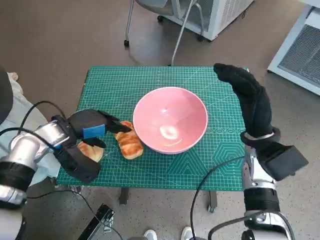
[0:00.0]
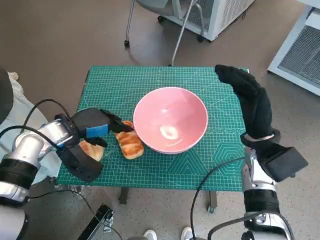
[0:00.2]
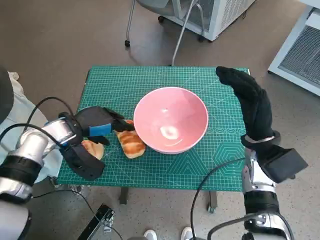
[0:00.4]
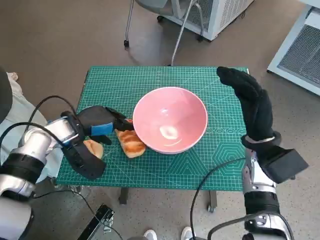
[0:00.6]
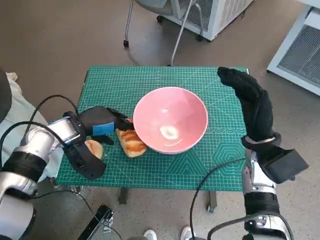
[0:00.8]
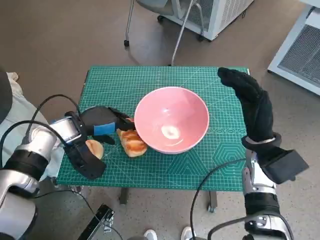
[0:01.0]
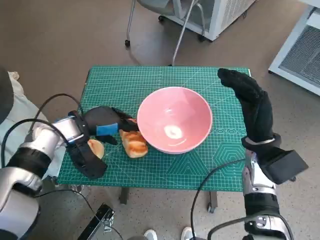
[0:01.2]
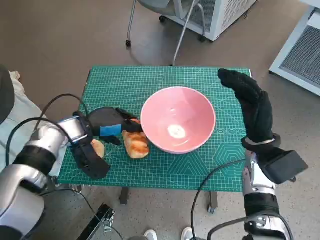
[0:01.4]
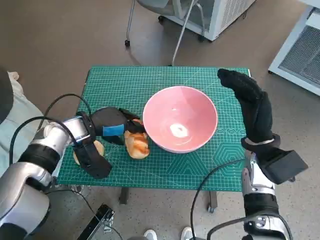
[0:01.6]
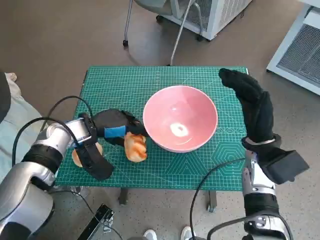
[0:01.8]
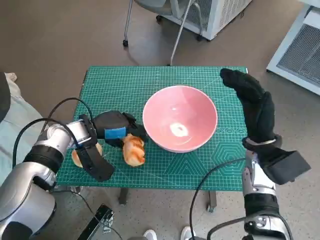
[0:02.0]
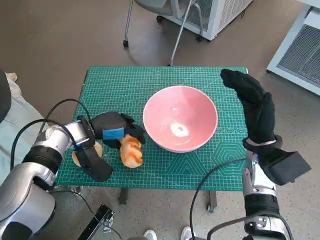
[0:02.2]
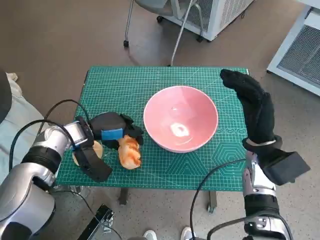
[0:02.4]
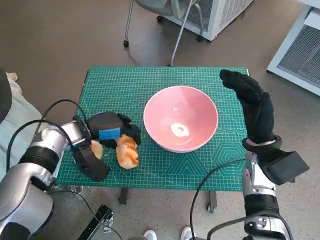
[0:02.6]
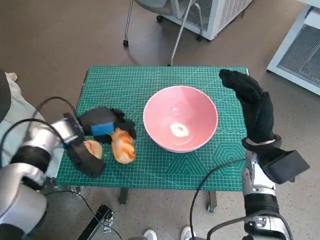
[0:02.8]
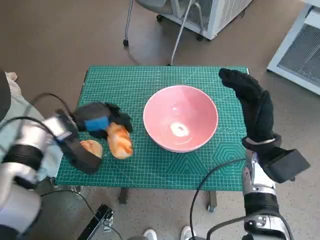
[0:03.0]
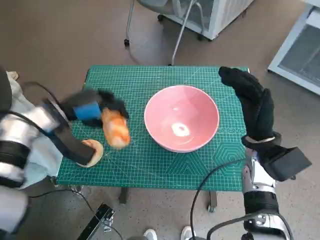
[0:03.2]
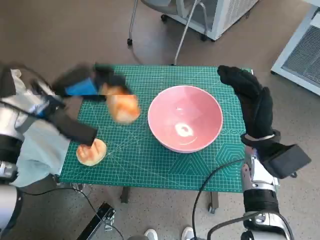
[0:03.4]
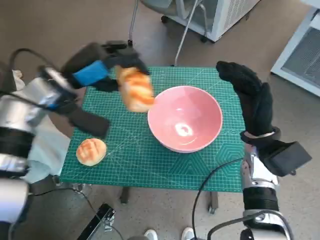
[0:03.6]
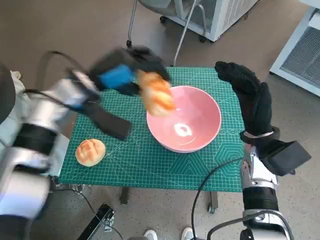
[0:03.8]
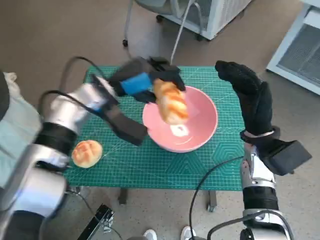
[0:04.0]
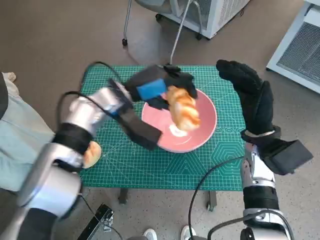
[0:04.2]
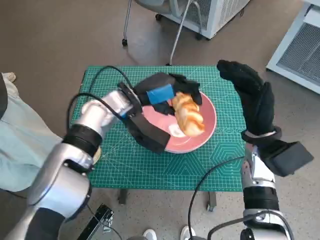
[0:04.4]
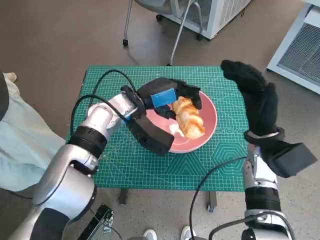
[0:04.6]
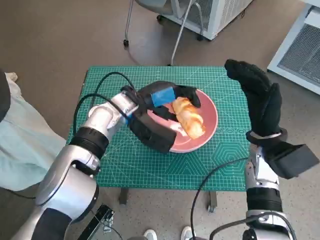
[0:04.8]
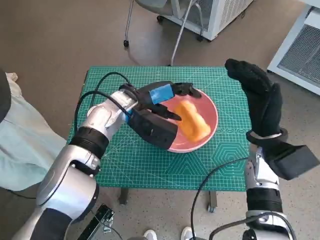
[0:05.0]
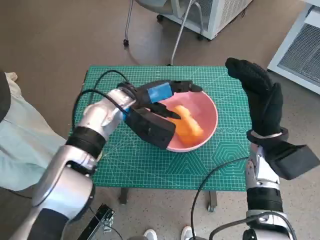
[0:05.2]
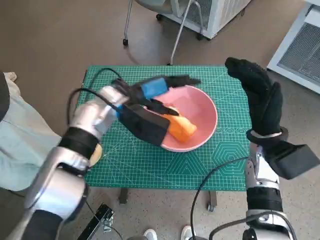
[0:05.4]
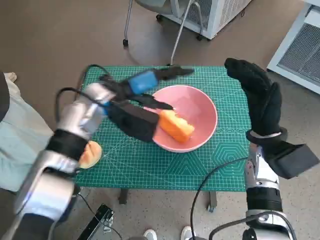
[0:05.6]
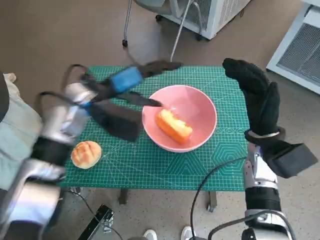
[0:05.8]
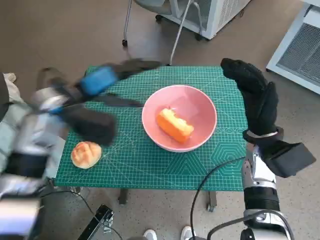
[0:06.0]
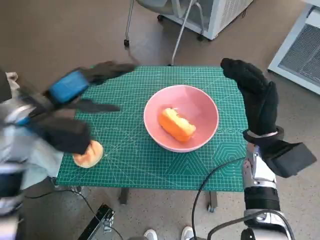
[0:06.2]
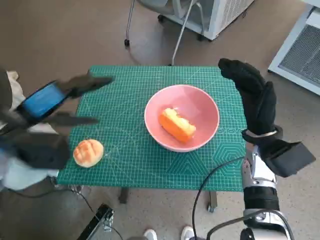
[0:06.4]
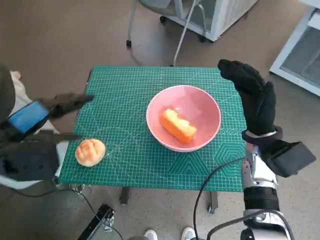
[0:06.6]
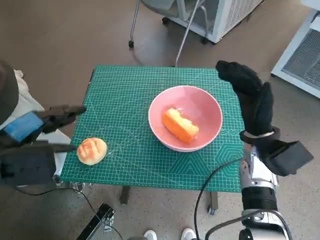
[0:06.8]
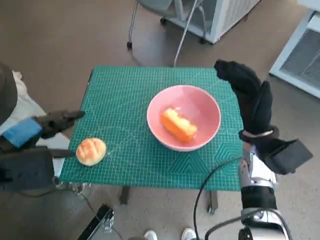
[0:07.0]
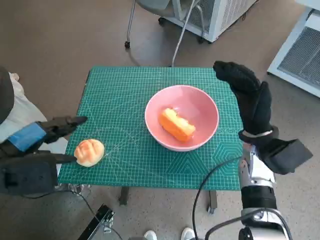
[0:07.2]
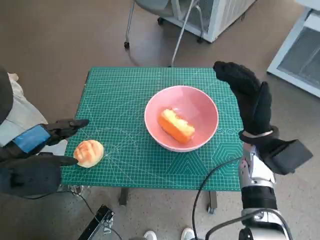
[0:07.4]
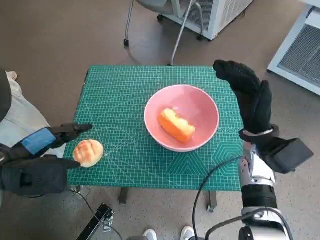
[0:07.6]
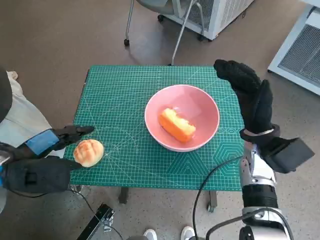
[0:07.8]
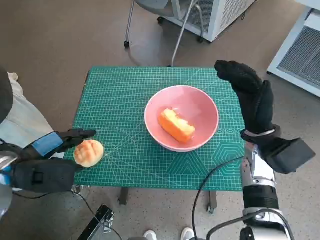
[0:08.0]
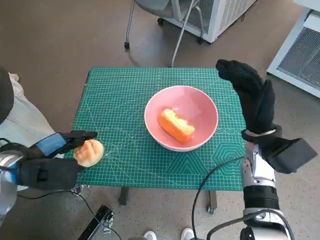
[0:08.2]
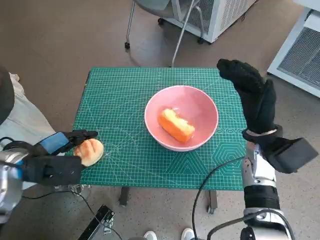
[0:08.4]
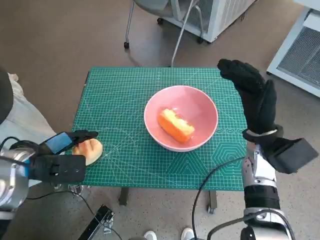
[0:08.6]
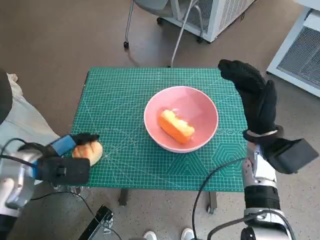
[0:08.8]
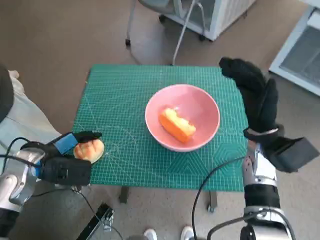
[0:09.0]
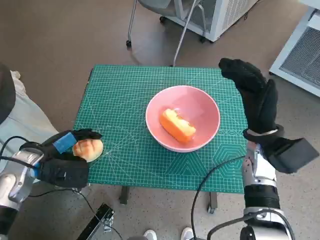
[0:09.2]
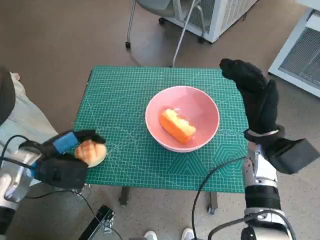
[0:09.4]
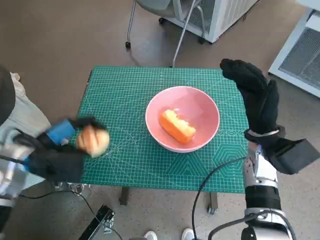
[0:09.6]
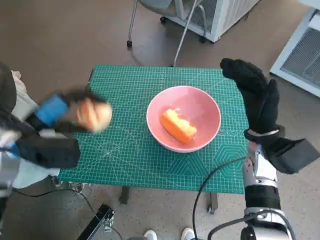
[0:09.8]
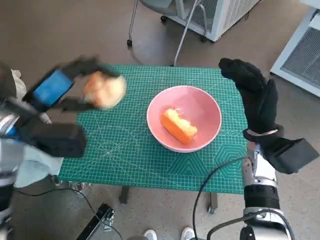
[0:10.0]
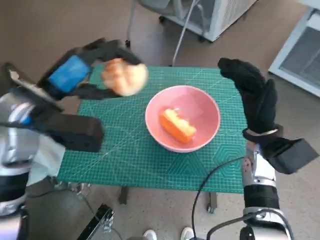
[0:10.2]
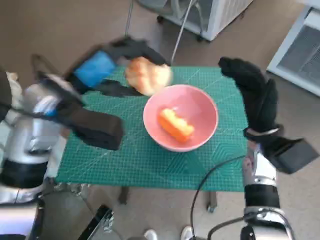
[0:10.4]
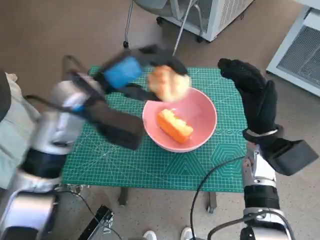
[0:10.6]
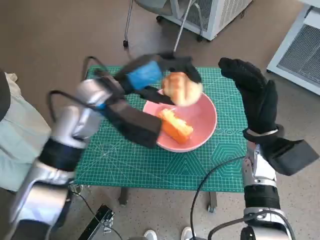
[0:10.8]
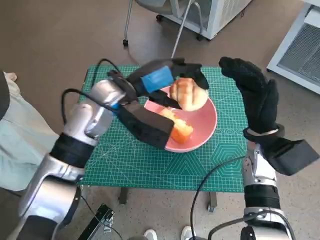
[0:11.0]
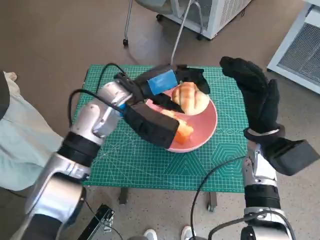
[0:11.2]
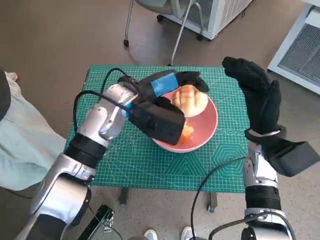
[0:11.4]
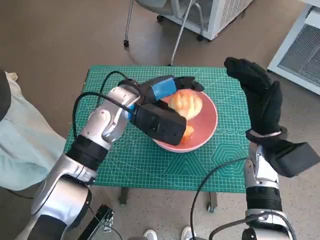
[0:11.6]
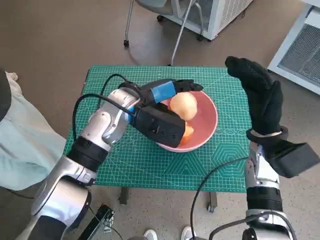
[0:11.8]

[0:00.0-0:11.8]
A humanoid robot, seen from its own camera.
Task of the whole recording: Push the bowl to the center of the table and put the bread into the bowl.
Step, 0:02.0 to 0:05.6: Place the long bread in pink bowl with left hand.
Step, 0:05.8 to 0:08.8: Grasp the round bread with left hand.
0:01.4 to 0:03.0: The hands stay close to where they were, moving slightly.
0:03.0 to 0:04.4: The left hand goes roughly 15 cm to the right.
0:04.4 to 0:06.0: The left hand travels to the left by some 10 cm.
0:06.0 to 0:07.4: The left hand moves backward and to the left, approximately 15 cm.
0:07.4 to 0:08.8: The left hand goes roughly 5 cm downward.
0:08.8 to 0:10.4: The left hand goes approximately 15 cm upward and to the right.
0:10.4 to 0:11.8: The left hand is displaced to the right, downward and forward by about 10 cm.

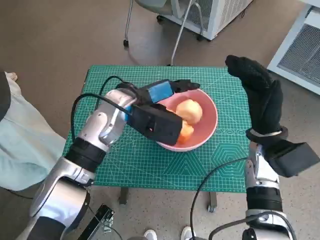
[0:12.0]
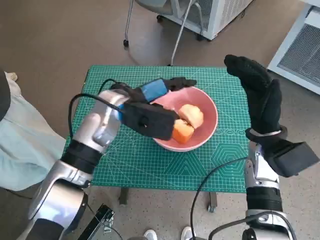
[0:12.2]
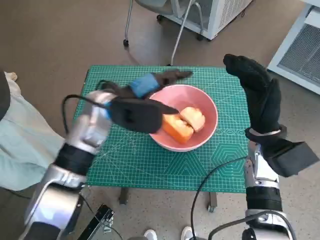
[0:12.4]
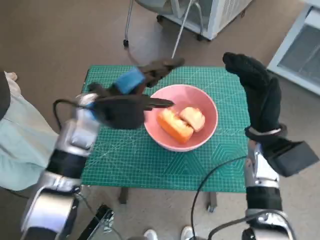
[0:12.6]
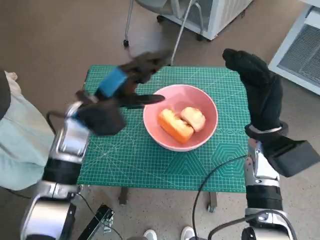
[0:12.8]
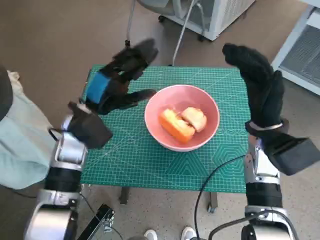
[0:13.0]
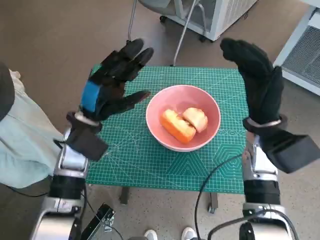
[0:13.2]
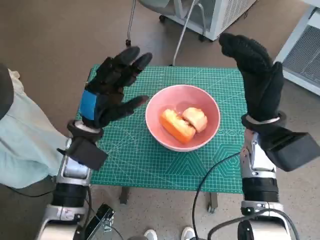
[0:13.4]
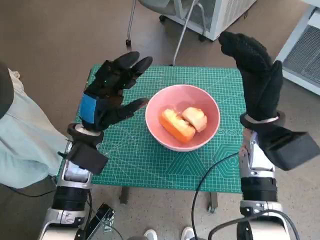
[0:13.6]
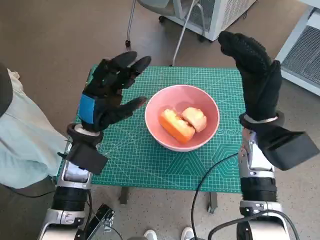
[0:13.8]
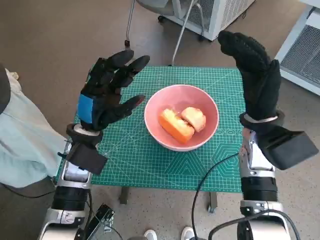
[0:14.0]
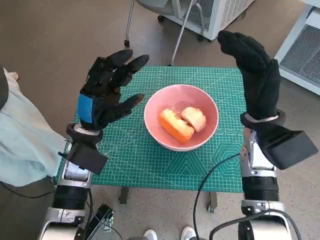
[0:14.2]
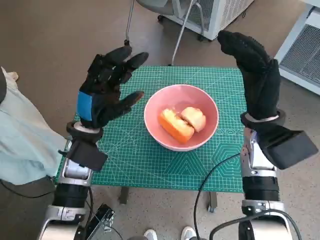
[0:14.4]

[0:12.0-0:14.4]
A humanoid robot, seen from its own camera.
Task of the whole recording: Push the bowl to the center of the table and put the bread into the bowl.
0:12.0 to 0:13.2: The left hand moves to the left, roughly 10 cm.
0:13.2 to 0:14.4: There are only small adjustments of the hands.

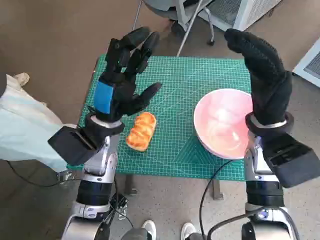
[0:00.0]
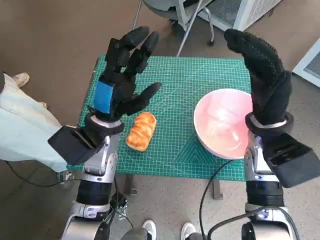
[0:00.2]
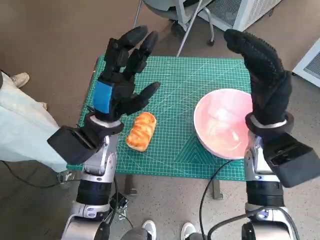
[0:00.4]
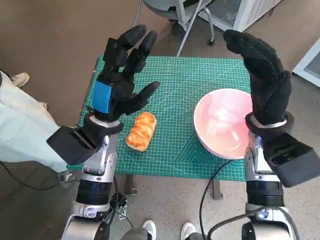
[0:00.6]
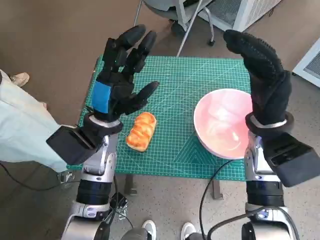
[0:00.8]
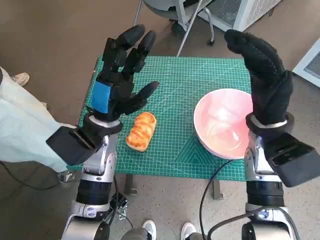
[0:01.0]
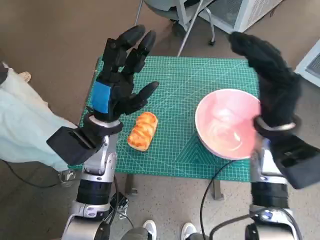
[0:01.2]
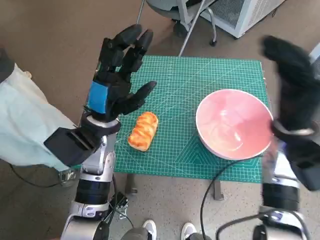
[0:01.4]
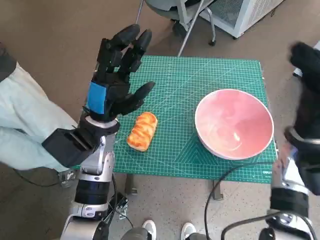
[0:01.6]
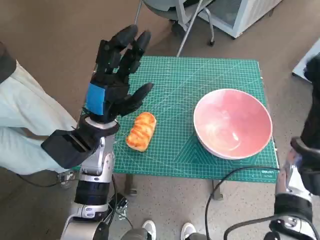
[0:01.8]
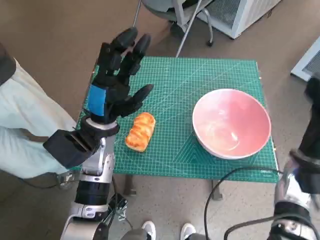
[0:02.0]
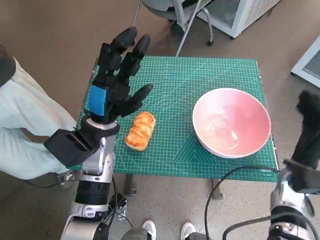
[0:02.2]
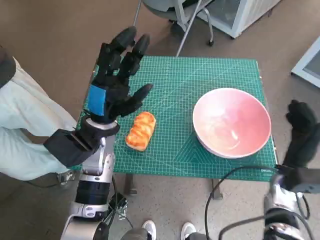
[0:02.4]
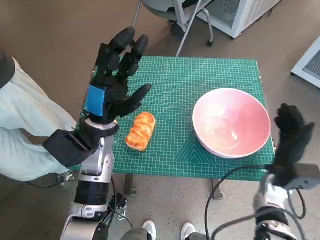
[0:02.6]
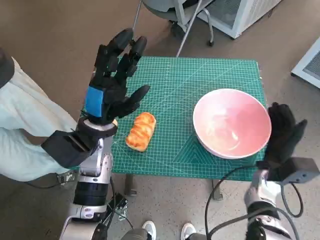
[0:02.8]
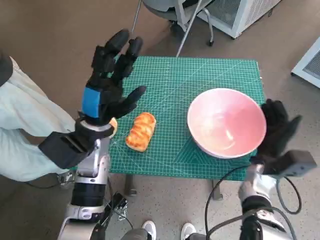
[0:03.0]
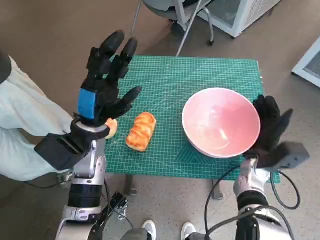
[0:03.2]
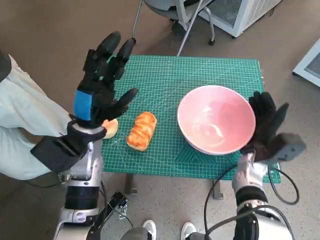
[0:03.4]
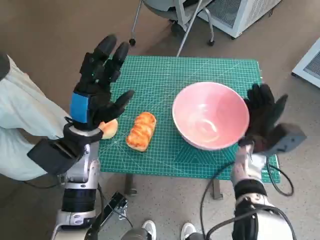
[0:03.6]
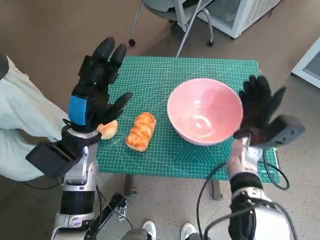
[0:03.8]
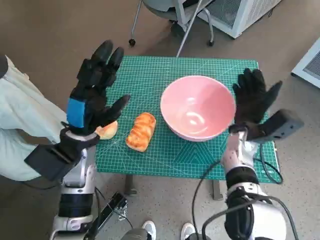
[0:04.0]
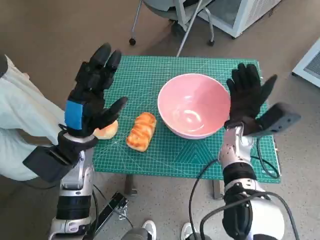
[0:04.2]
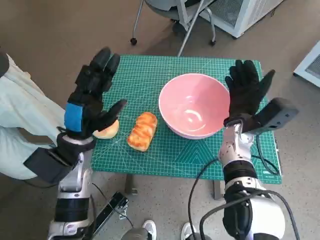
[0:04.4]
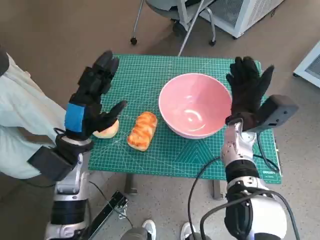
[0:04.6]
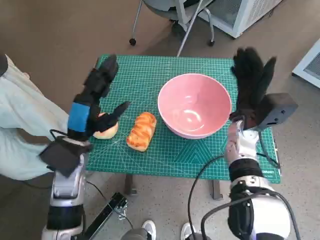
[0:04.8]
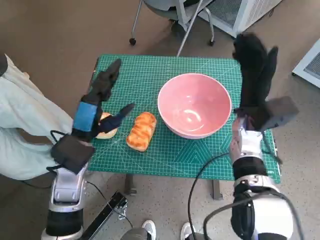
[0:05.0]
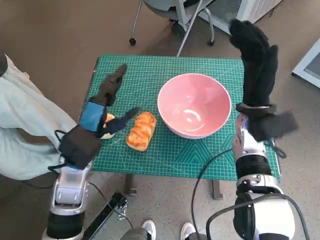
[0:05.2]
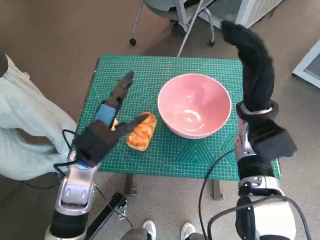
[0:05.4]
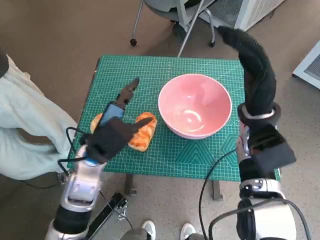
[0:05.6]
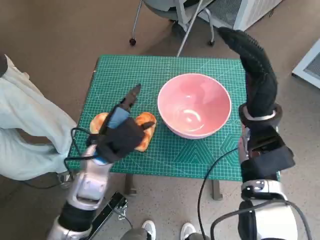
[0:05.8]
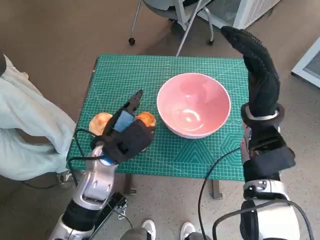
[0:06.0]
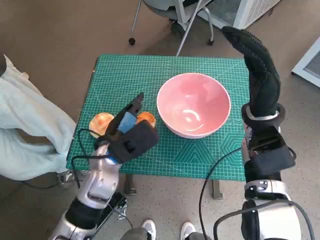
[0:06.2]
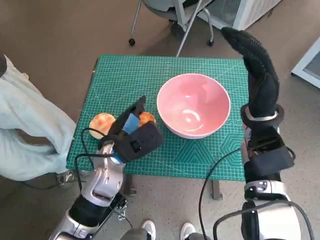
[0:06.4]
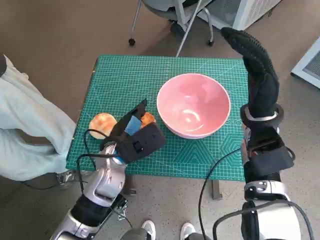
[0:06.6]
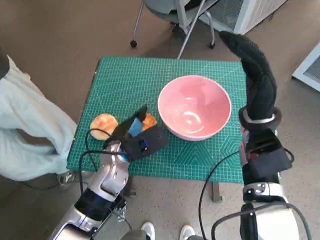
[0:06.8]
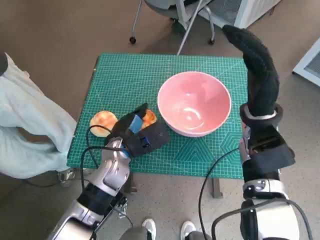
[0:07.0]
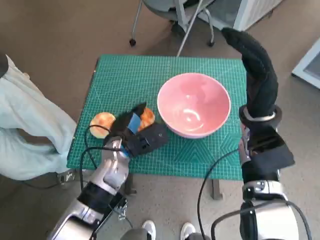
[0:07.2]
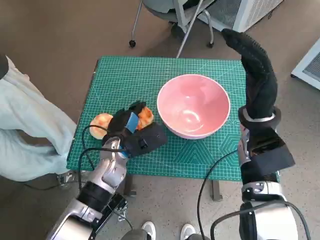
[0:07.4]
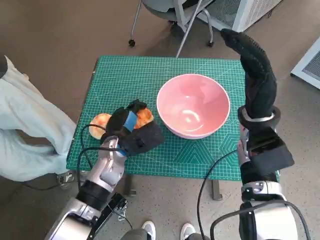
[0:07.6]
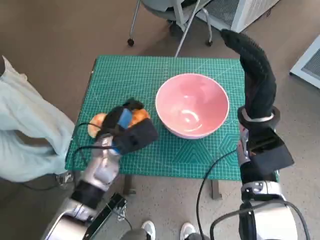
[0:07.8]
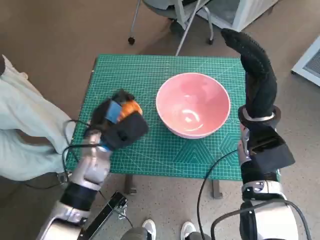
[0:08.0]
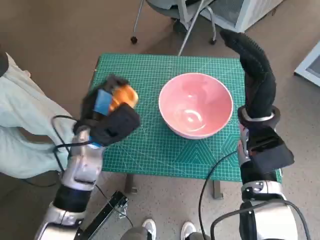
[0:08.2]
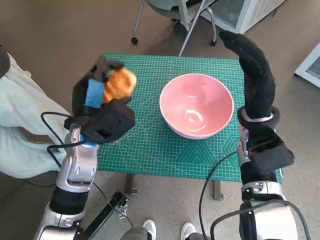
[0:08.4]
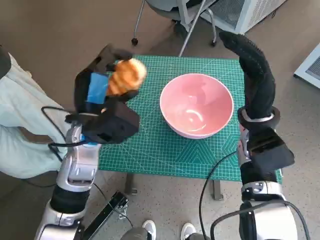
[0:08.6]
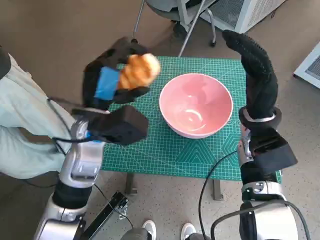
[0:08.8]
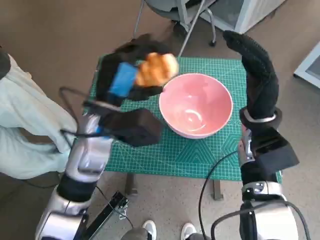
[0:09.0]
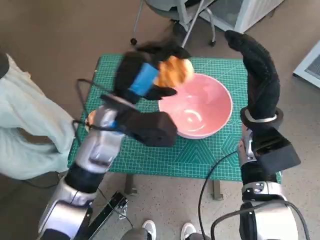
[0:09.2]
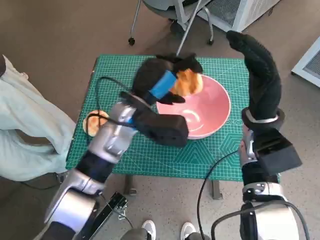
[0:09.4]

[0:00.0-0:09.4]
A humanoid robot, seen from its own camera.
Task of the whole recording: Push the bowl to the center of the table and put the bread into the bowl.
Step, 0:00.0 to 0:04.2: Move the pink bowl to the center of table with right hand.
Step, 0:04.4 to 0:07.0: Grasp the long bread with left hand.
0:01.6 to 0:03.2: The right hand is displaced downward by roughly 15 cm.
0:03.2 to 0:04.8: The right hand travels upward and forward by approximately 10 cm.
0:04.8 to 0:06.2: The right hand goes roughly 5 cm upward; the left hand is displaced to the right by roughly 5 cm.
0:06.2 to 0:07.8: The left hand ends up approximately 5 cm from where it was.
0:07.8 to 0:09.4: The left hand is displaced upward and to the right by roughly 10 cm.
